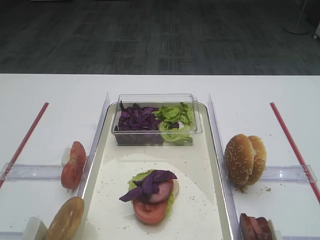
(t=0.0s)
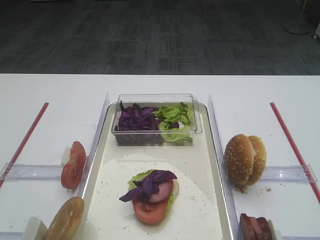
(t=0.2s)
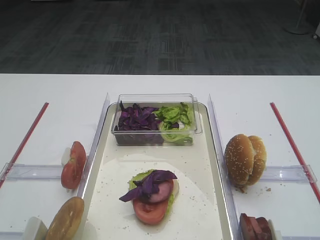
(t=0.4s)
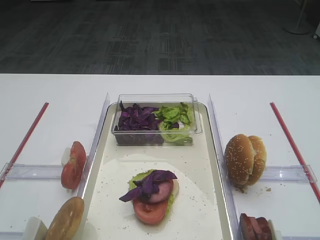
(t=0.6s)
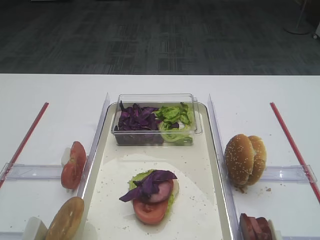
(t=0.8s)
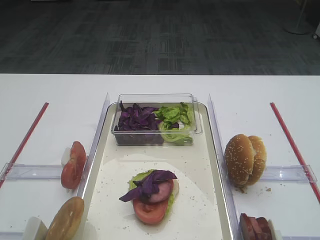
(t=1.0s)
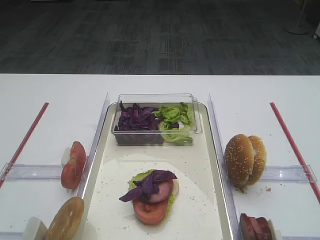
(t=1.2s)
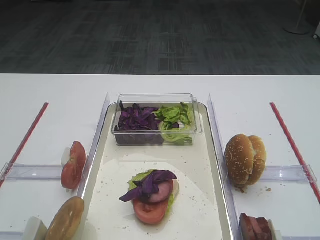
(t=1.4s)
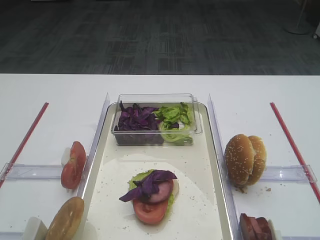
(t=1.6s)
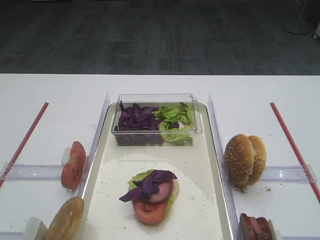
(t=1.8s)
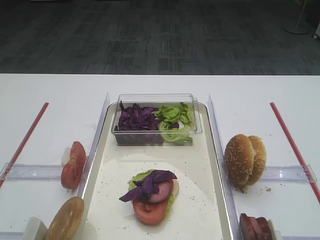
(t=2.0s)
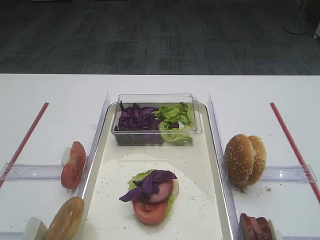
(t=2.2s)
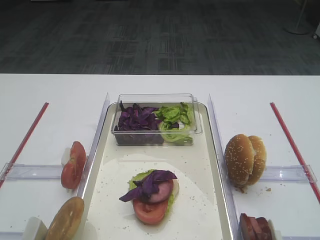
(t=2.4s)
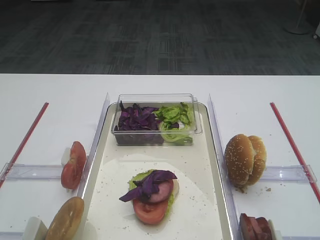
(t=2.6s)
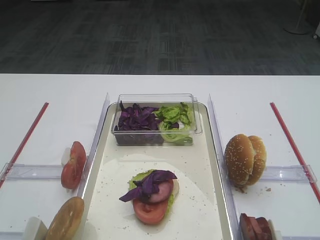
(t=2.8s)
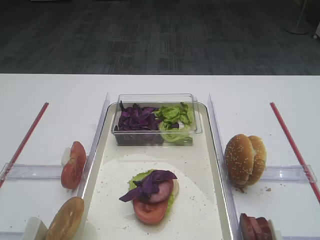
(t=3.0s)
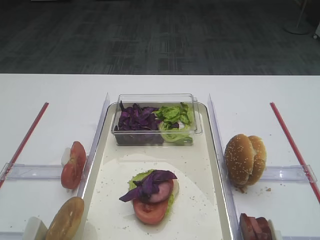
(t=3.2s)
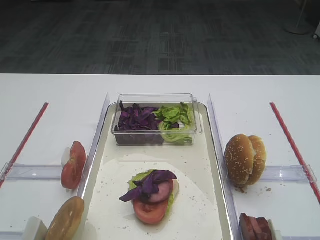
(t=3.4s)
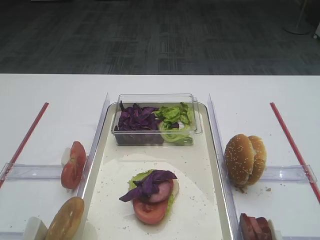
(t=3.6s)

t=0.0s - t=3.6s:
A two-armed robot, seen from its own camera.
t=0.0s - t=3.6s: Both grippers stay put.

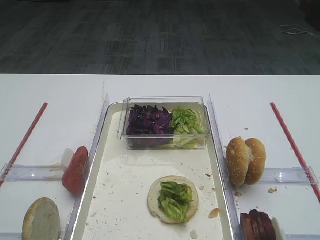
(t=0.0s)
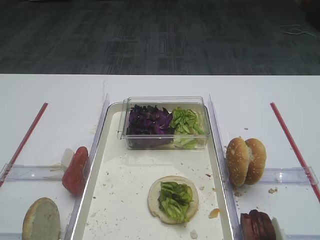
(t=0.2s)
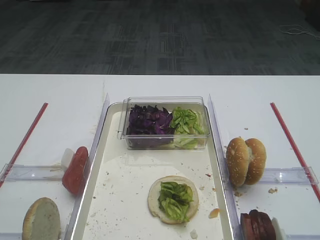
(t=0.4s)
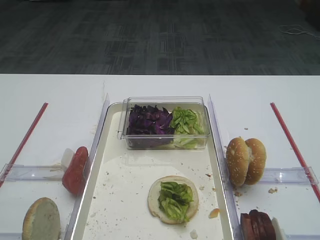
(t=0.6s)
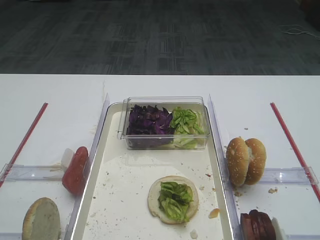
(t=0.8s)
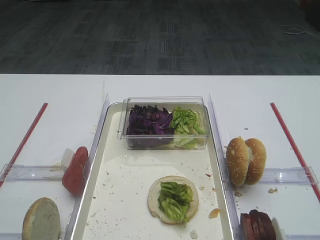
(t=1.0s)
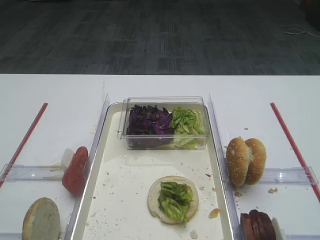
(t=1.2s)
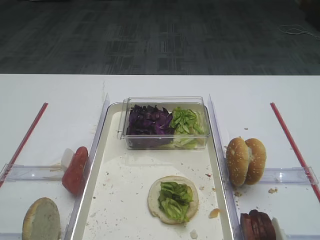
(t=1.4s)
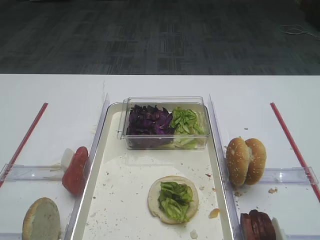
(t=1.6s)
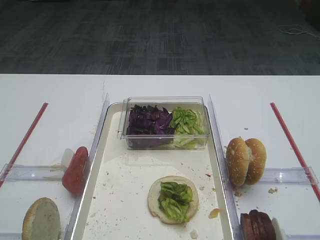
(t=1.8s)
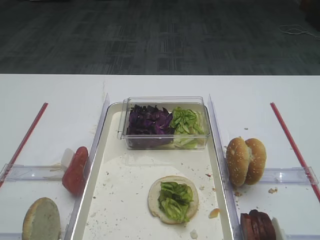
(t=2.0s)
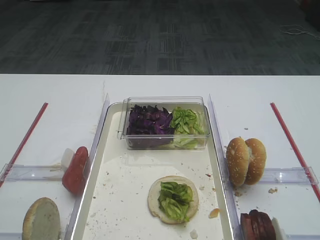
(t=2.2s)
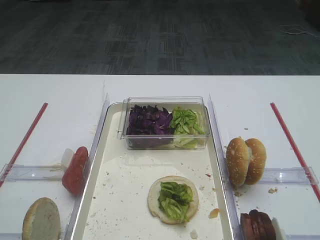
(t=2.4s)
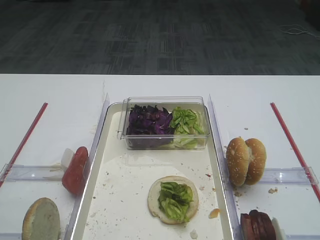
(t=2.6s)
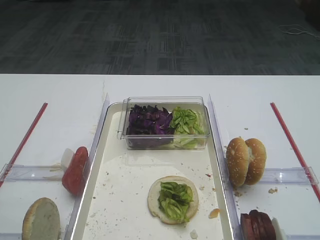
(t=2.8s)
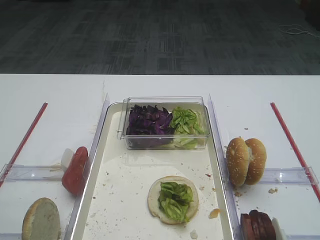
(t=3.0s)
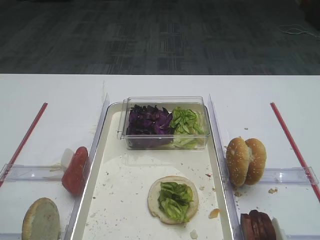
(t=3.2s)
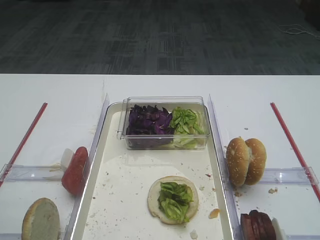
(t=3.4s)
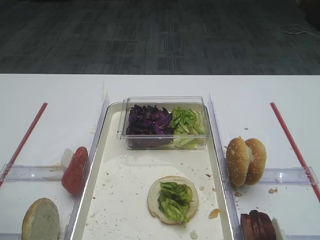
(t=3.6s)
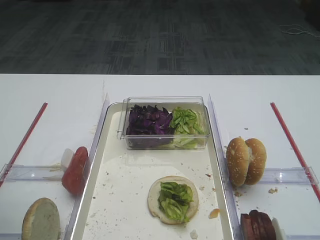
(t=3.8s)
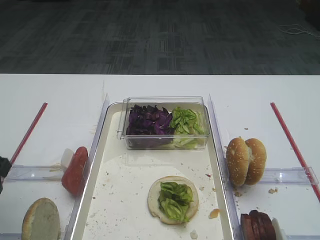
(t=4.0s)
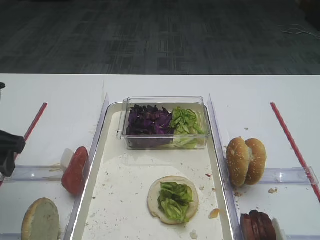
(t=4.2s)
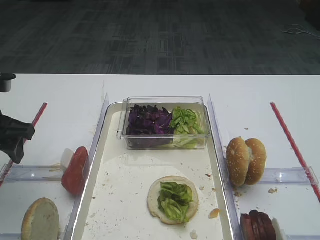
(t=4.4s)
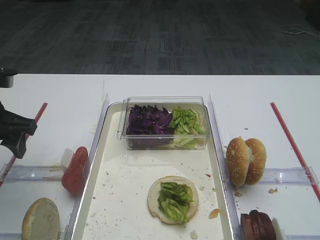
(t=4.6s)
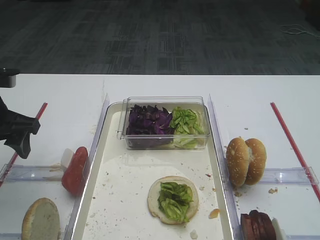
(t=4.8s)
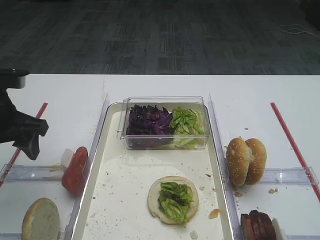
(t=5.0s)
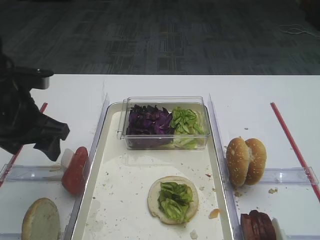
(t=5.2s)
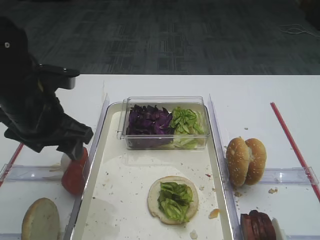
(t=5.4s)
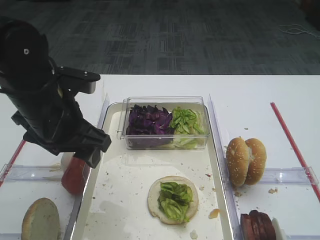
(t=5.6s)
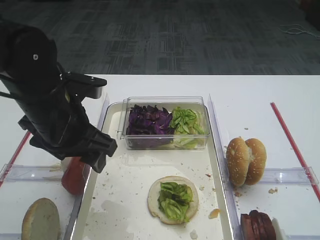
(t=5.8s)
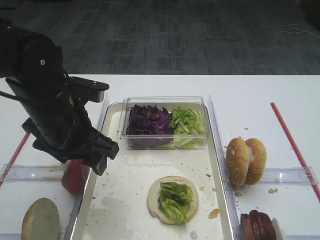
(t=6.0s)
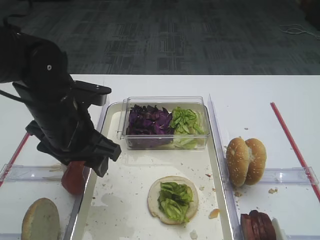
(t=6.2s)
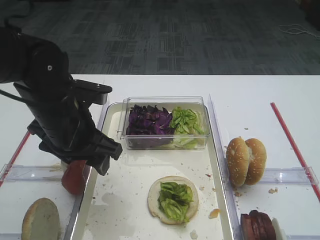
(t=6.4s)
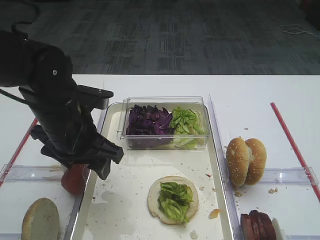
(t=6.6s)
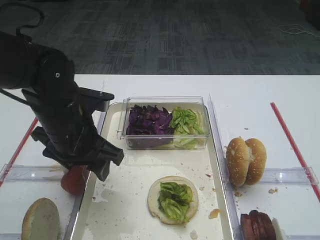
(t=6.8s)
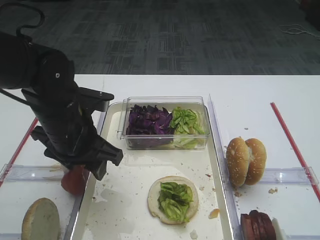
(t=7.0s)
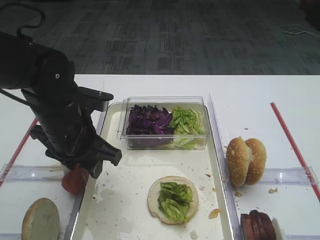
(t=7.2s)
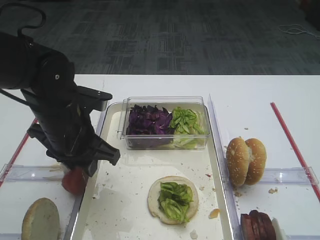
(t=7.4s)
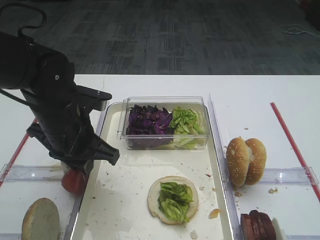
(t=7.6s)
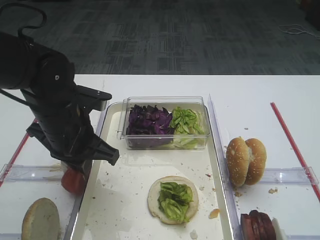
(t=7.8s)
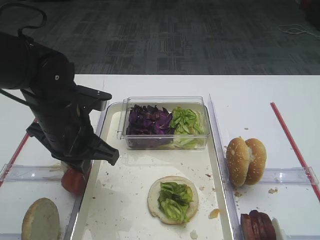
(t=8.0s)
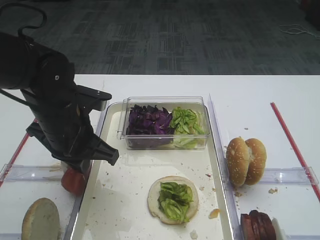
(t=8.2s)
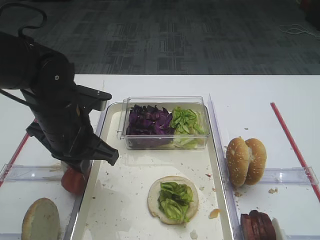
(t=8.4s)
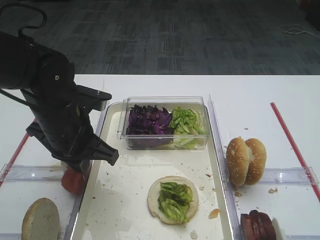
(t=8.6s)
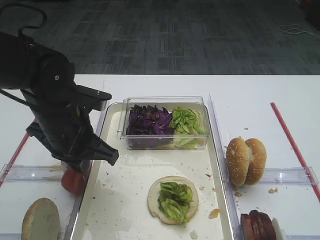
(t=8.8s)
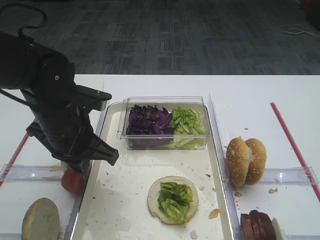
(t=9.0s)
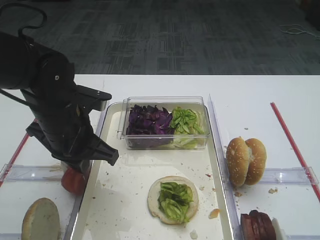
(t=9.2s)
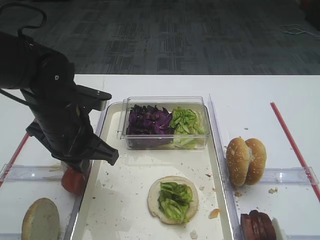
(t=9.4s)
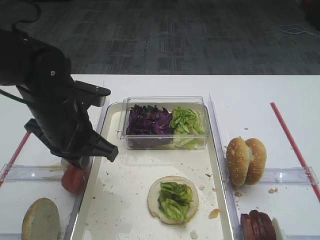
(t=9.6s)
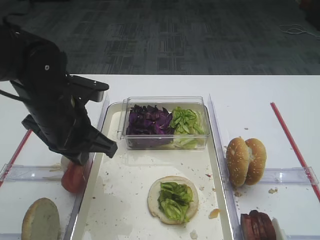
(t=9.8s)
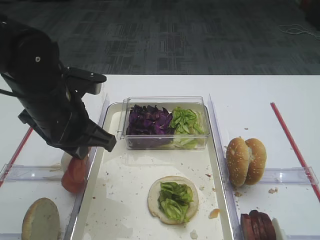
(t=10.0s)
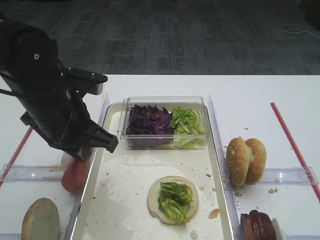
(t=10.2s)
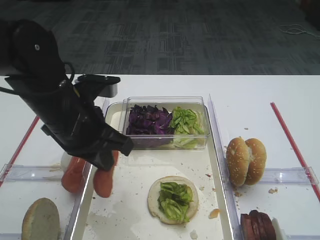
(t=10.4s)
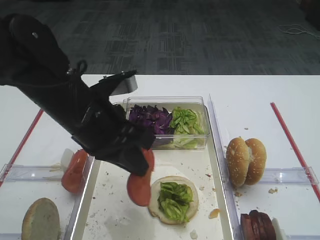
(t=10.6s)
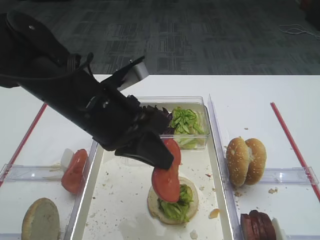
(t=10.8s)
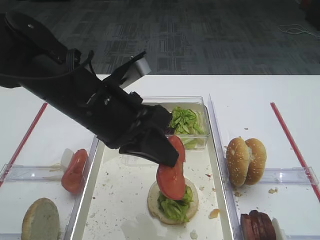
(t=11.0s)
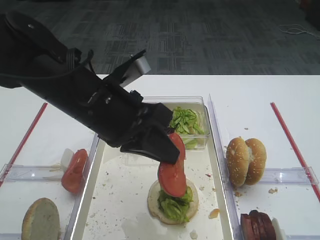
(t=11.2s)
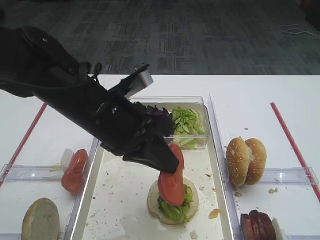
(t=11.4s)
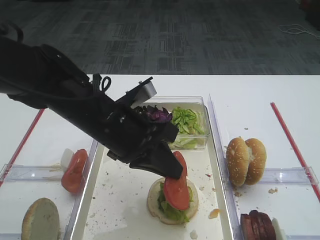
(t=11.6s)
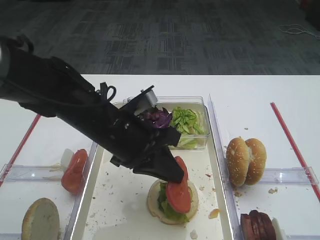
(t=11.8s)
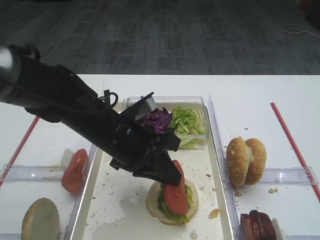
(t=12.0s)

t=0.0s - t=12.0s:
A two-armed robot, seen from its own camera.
Step, t=0.0s - t=9.4s: Pick up the tomato slice with the left gripper.
t=3.0s - t=4.4s: The left gripper is displaced forward by some 15 cm.
t=4.4s - t=6.0s: The left gripper heads to the right, covering approximately 15 cm.
t=6.0s - t=7.6s: The left gripper closes its fingers.
t=7.6s - t=9.0s: Both grippers stay about where they are.
t=9.0s - t=10.4s: The grippers make only small movements.
t=10.4s - t=12.0s: The left gripper moves to the right and downward, some 10 cm.

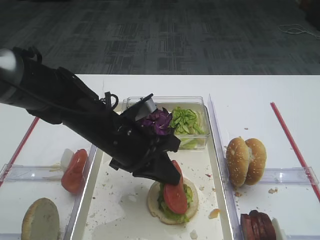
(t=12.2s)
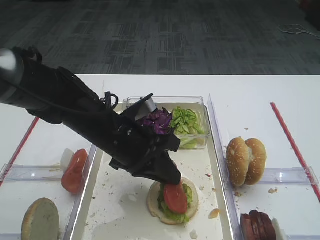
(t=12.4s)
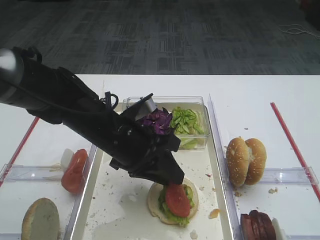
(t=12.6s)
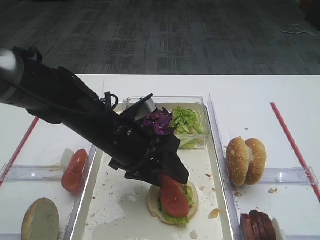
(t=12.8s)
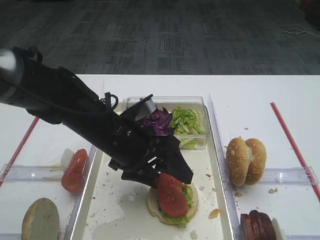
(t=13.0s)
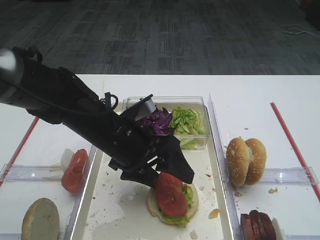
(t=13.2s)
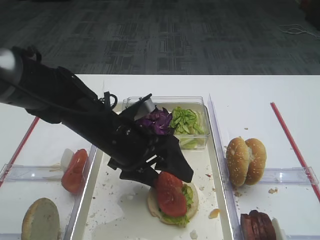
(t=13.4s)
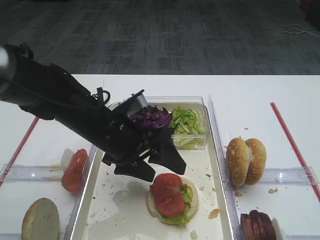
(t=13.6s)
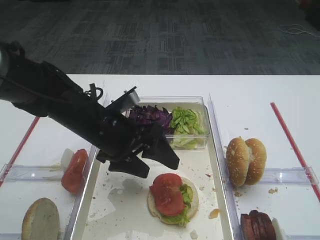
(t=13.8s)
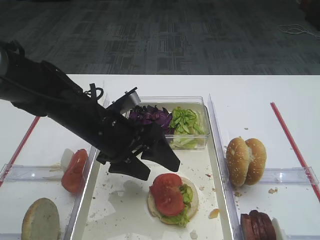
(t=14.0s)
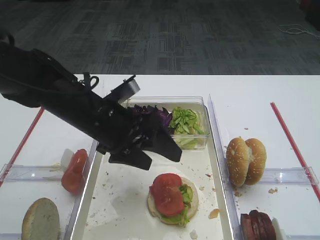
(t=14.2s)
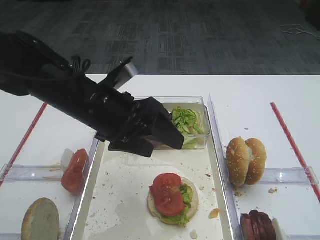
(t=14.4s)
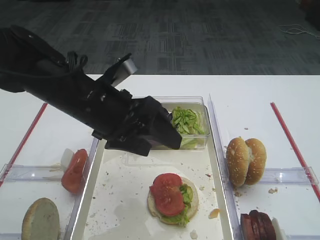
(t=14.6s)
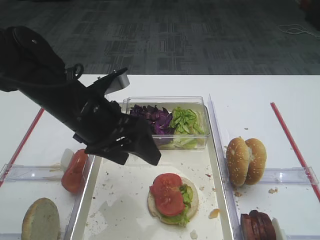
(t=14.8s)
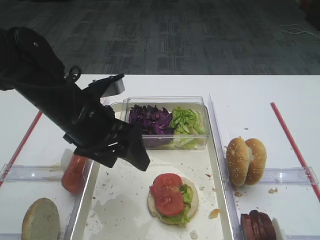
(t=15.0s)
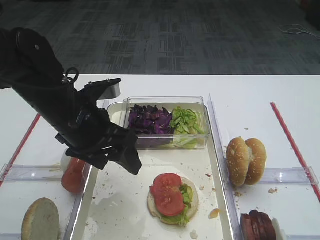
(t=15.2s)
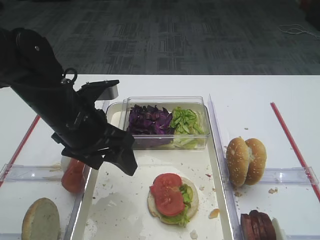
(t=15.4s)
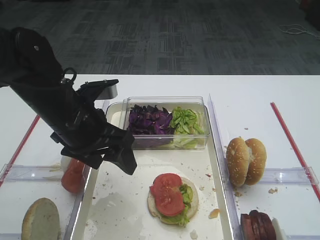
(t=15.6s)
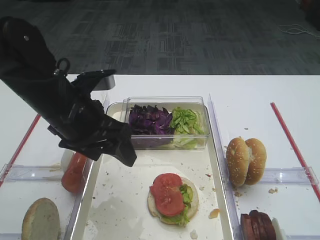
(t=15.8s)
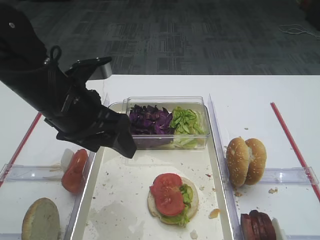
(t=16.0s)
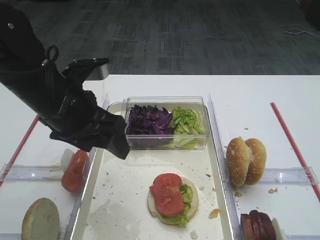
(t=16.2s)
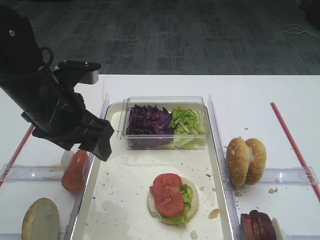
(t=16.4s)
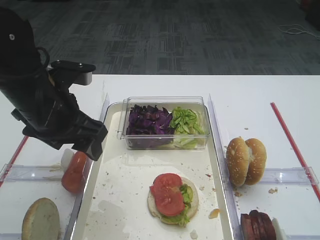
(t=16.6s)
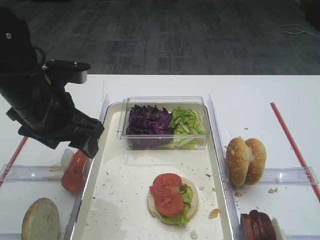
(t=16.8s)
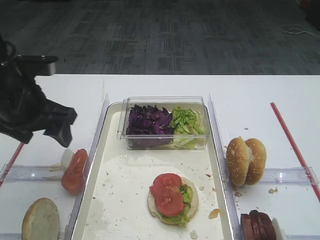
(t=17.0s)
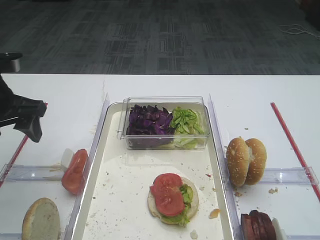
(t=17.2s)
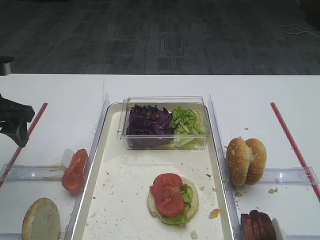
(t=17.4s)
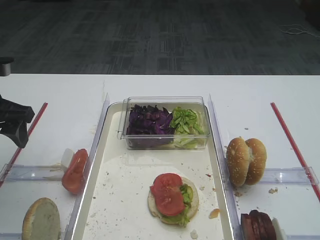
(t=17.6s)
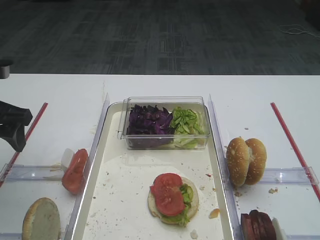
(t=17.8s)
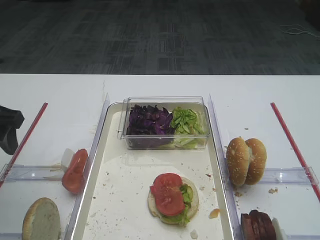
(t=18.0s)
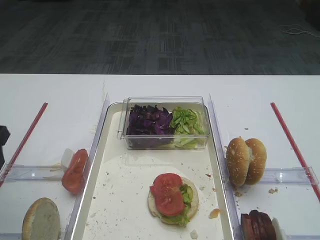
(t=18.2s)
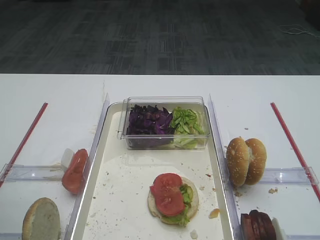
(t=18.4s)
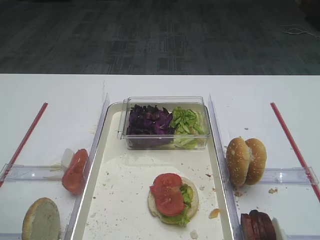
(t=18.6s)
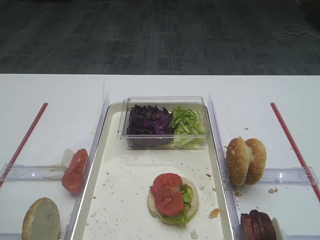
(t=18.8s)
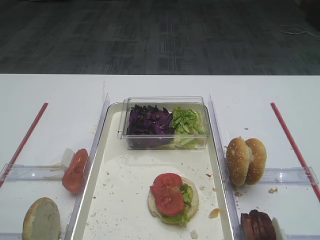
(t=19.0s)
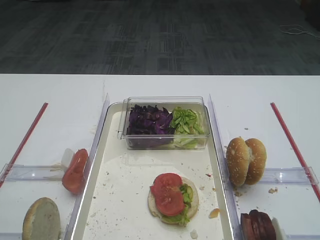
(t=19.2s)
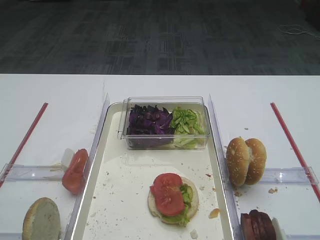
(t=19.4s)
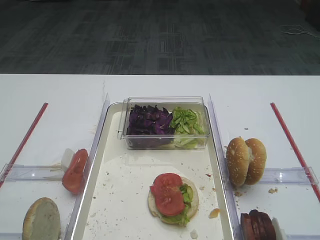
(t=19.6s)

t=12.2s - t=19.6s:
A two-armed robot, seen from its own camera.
t=12.2s - t=13.6s: The left gripper opens up.
t=13.6s - t=15.2s: The left gripper ends up some 5 cm from where it was.
t=16.6s - t=18.2s: The left gripper moves to the left, about 10 cm.
t=18.2s - t=19.6s: The left gripper travels backward by approximately 20 cm.
